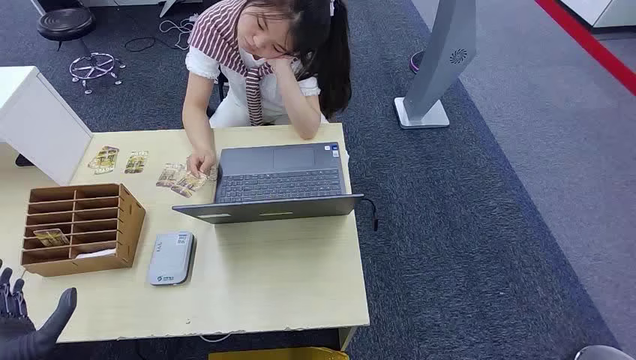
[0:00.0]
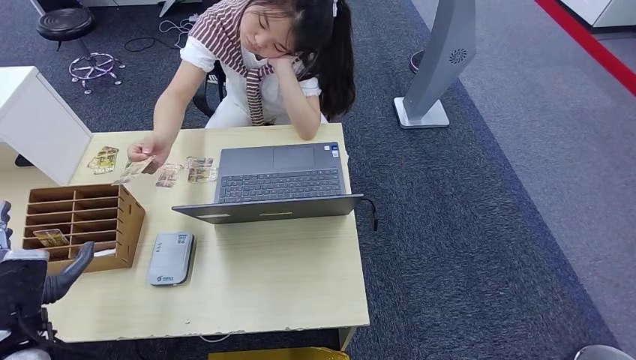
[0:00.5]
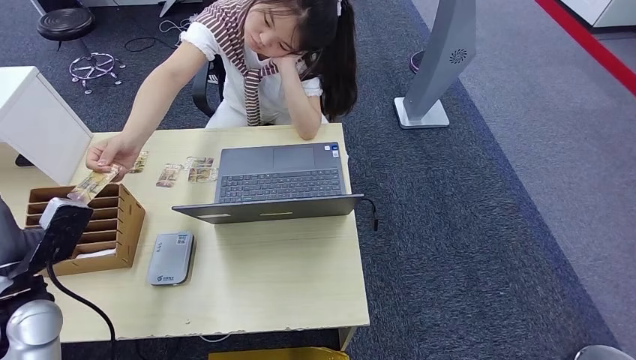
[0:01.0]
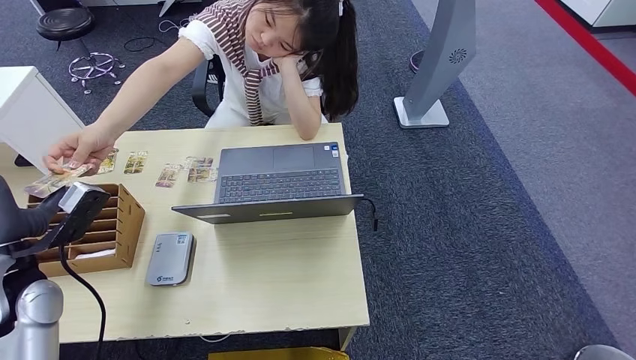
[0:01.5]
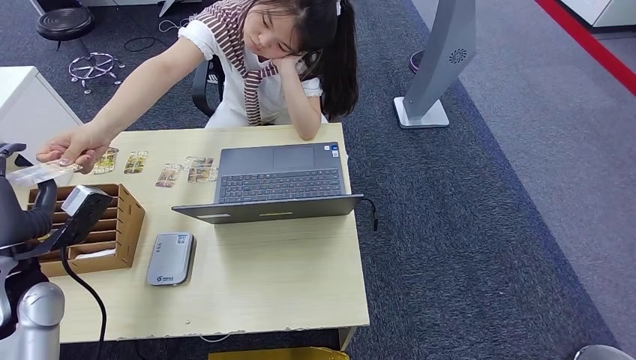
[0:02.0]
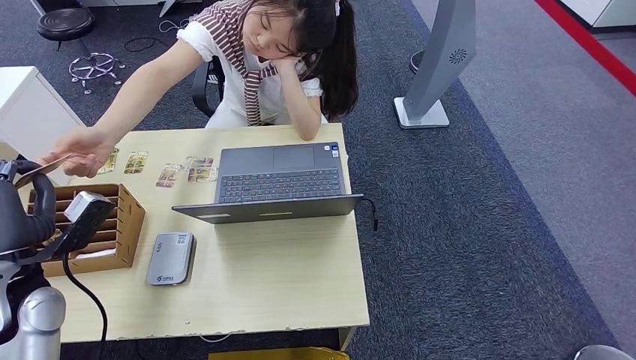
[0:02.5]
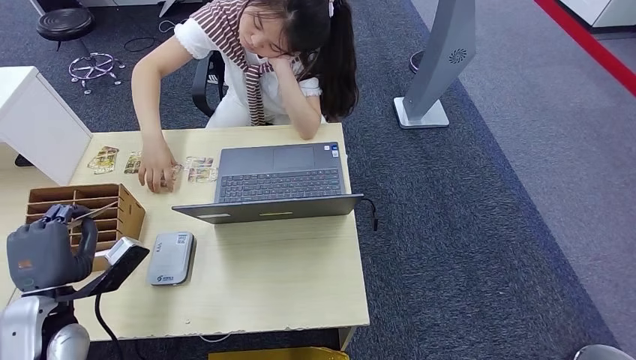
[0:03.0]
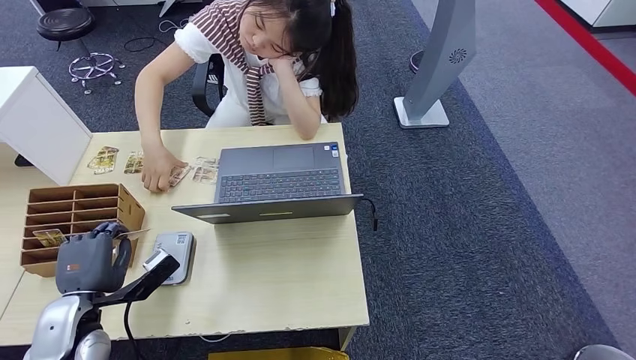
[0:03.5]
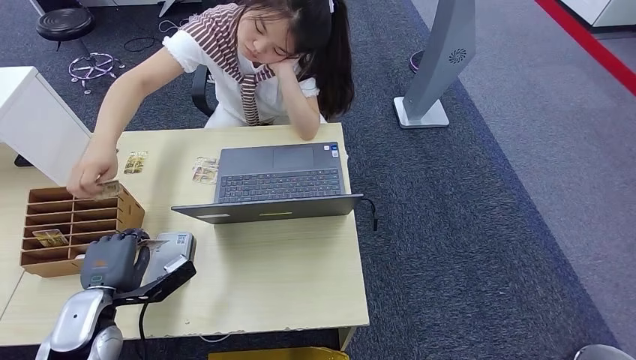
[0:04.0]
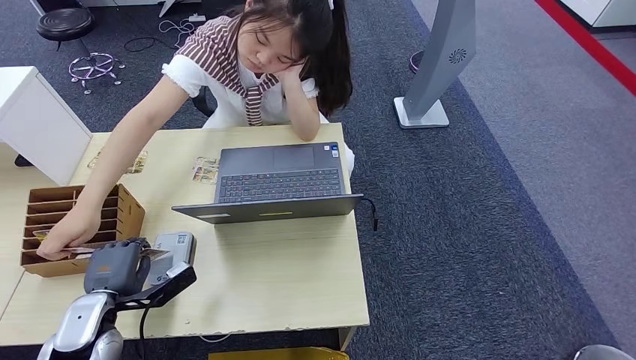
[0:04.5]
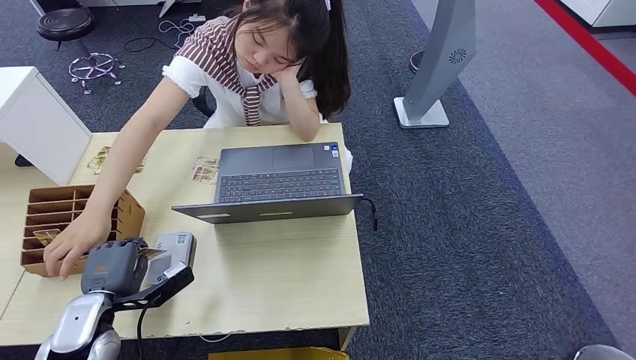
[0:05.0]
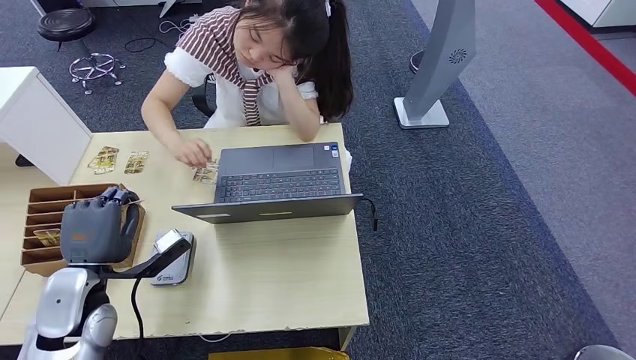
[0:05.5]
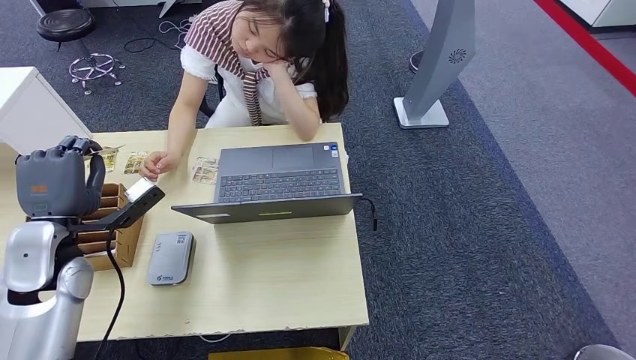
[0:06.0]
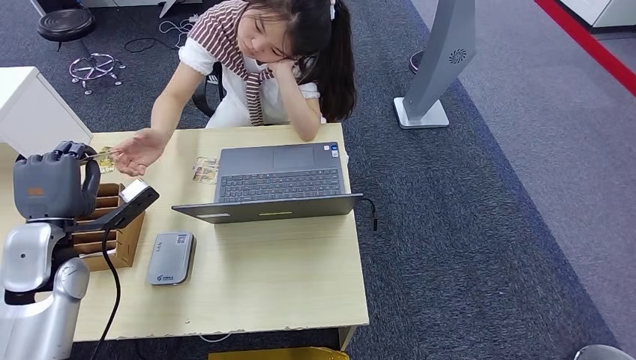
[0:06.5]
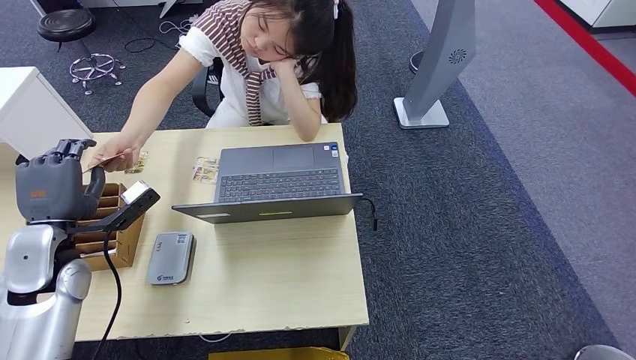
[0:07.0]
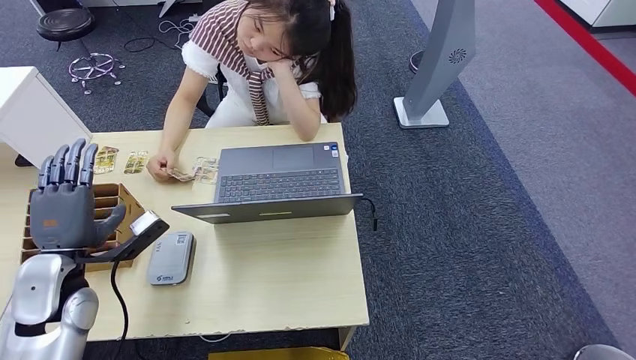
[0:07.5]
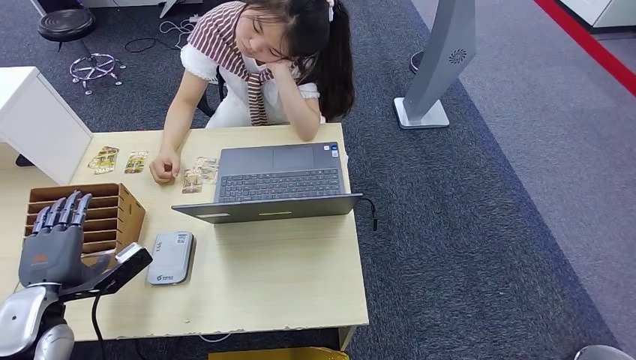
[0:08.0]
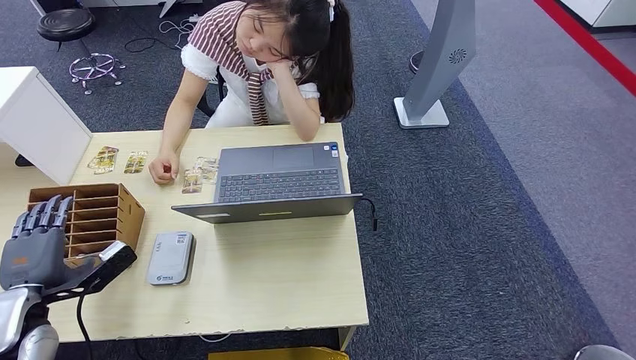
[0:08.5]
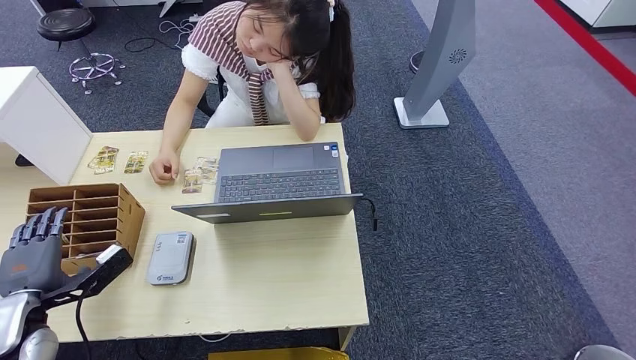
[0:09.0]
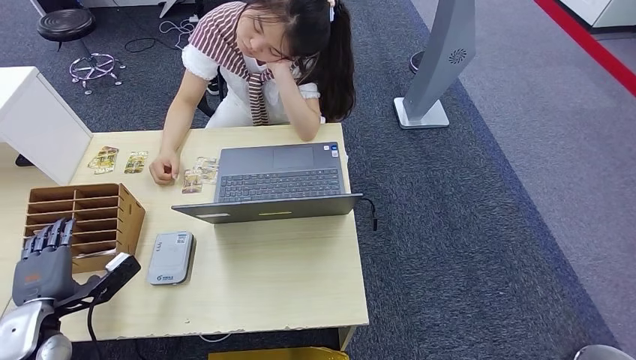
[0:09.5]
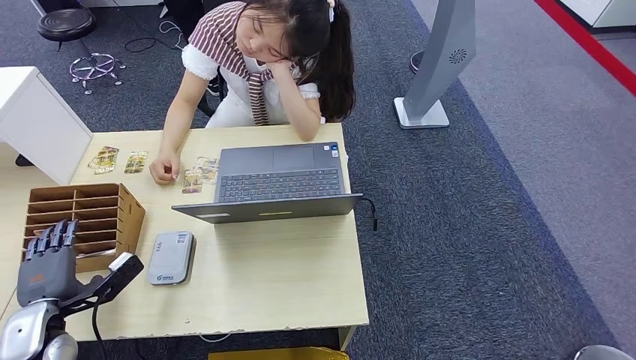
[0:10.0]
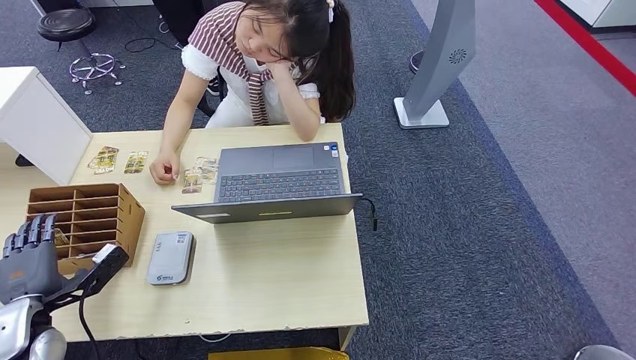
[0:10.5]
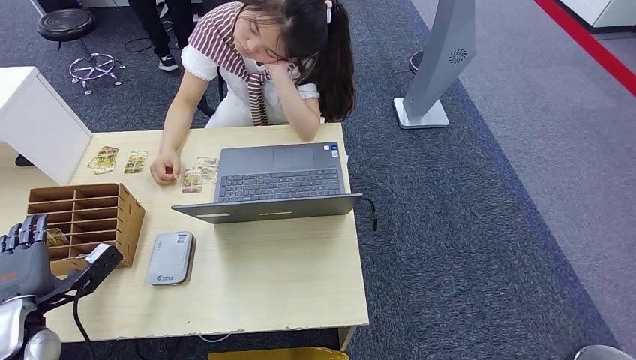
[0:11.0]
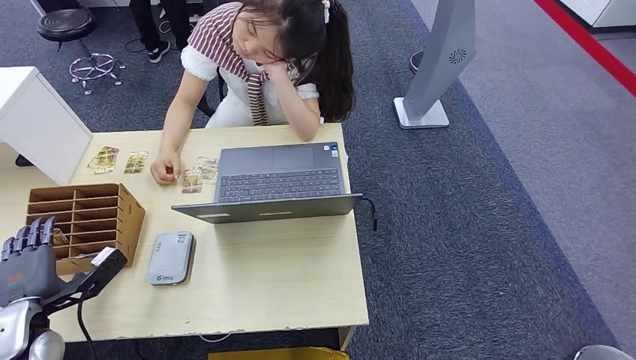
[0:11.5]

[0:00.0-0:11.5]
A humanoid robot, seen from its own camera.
Step, 0:00.0 to 0:03.0: Take the ID card from the person's hand.
Step, 0:03.5 to 0:04.5: Place the ID card on the card reader.
Step, 0:05.0 to 0:07.5: Hand the ID card to the person.
0:02.0 to 0:04.0: The left hand heads downward, covering about 10 cm.
0:04.0 to 0:06.0: The left hand goes some 15 cm upward and forward.
0:06.0 to 0:07.5: The left hand ends up approximately 5 cm from where it was.
0:07.5 to 0:09.5: The left hand shifts roughly 10 cm downward, to the left and backward.
0:09.5 to 0:11.5: The hands make only small movements.

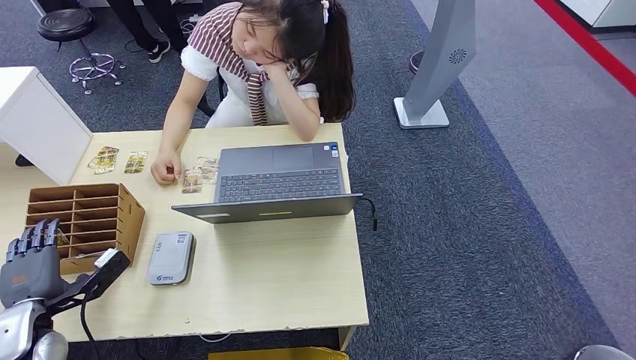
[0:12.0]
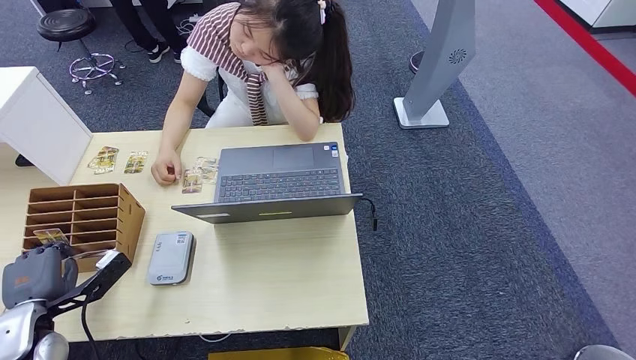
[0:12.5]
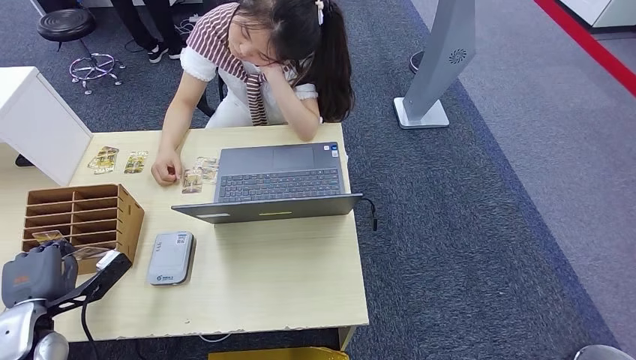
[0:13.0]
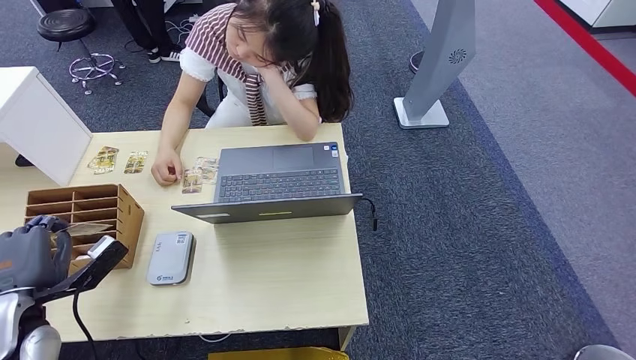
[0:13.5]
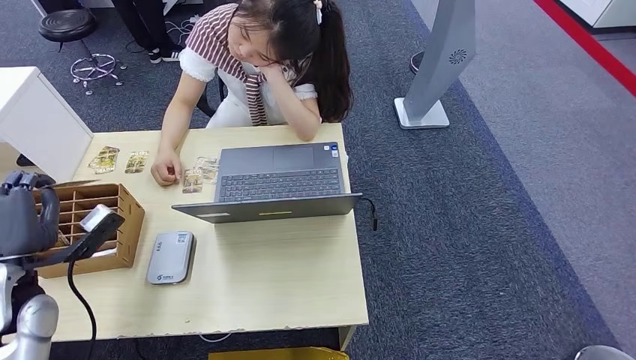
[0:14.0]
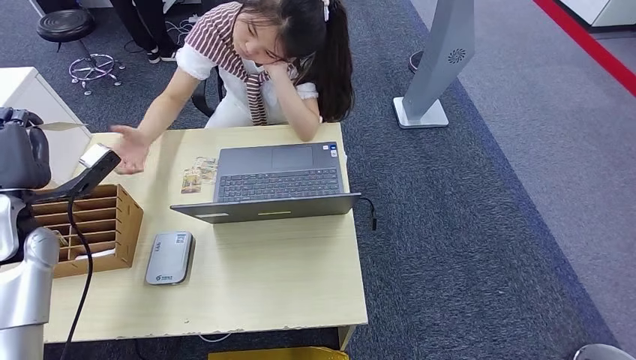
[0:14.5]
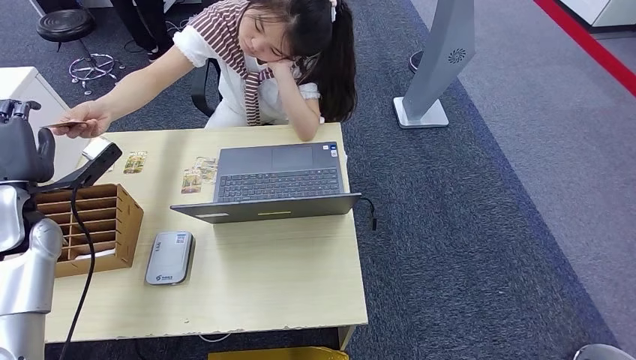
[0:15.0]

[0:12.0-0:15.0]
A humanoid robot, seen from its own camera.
Step, 0:14.0 to 0:15.0: Hand the room key to the person.
0:12.0 to 0:13.5: There are only small adjustments of the hands.
0:13.5 to 0:15.0: The left hand is displaced forward and upward by about 15 cm.
